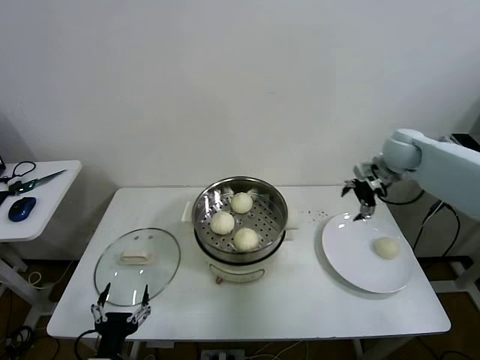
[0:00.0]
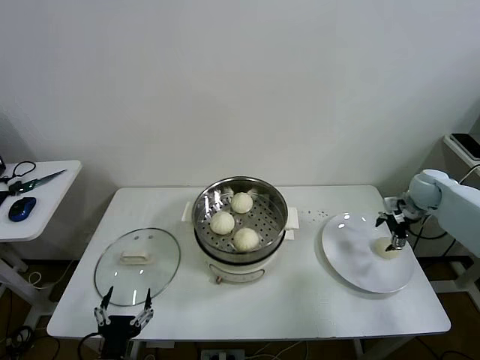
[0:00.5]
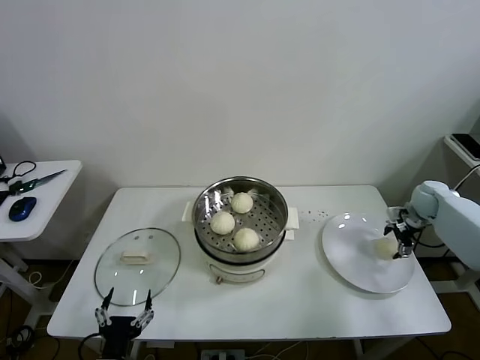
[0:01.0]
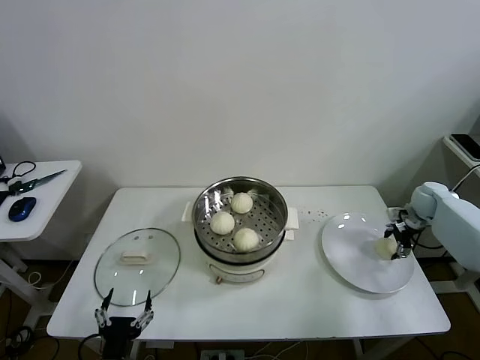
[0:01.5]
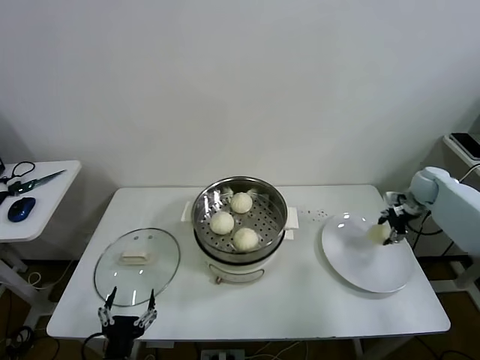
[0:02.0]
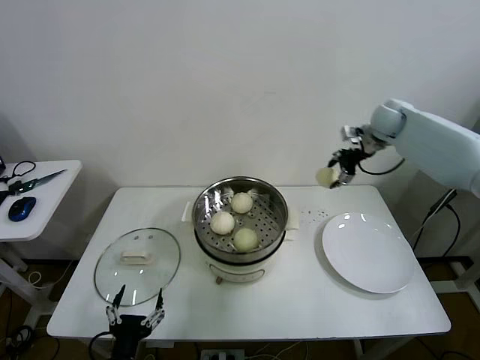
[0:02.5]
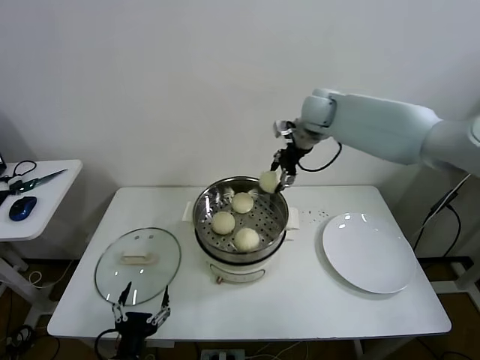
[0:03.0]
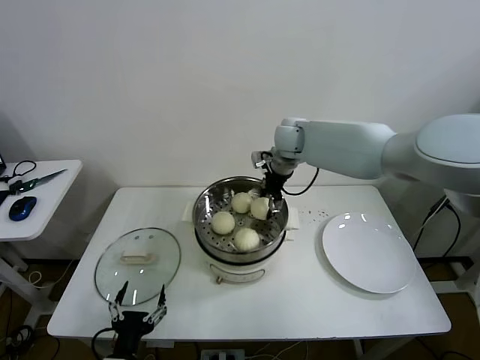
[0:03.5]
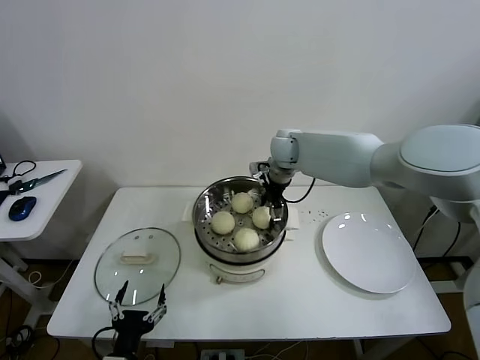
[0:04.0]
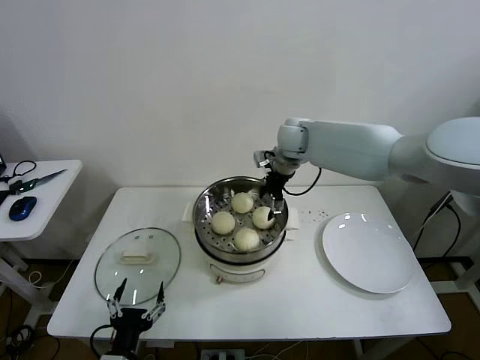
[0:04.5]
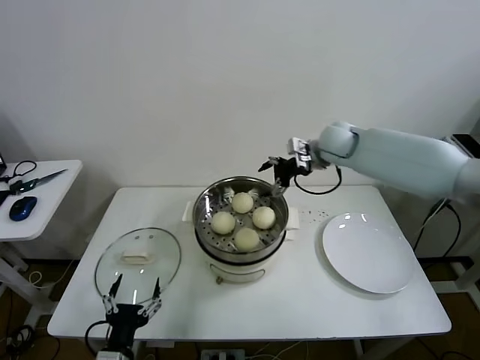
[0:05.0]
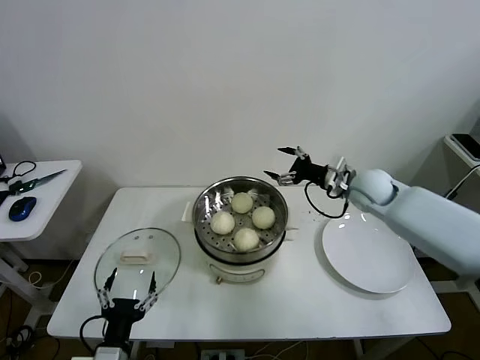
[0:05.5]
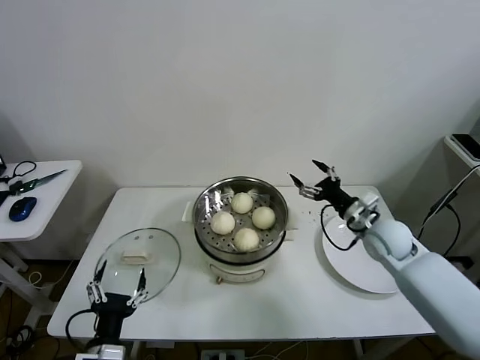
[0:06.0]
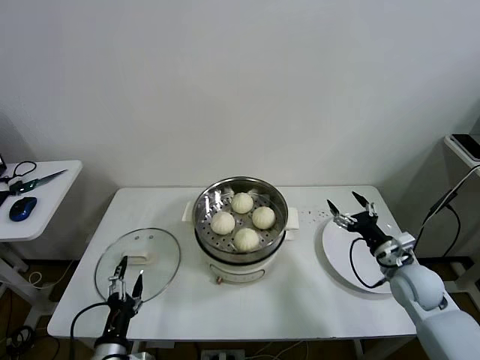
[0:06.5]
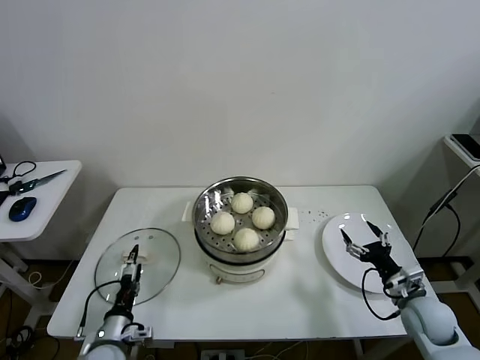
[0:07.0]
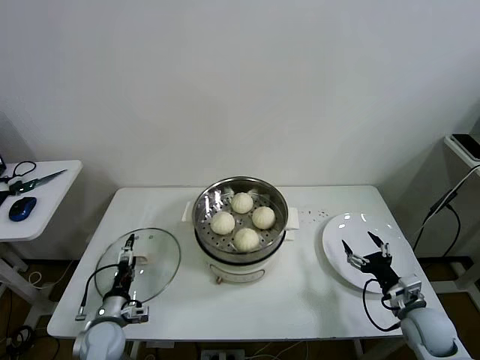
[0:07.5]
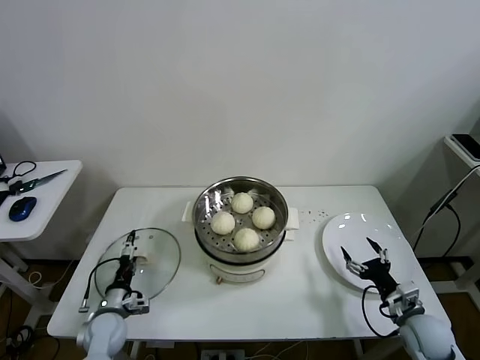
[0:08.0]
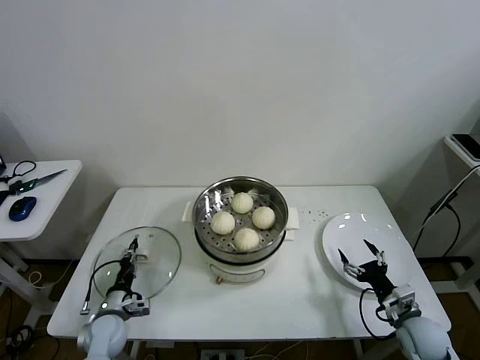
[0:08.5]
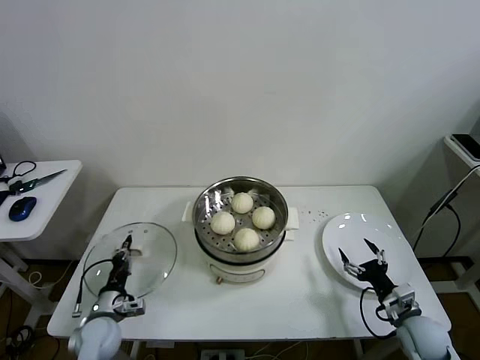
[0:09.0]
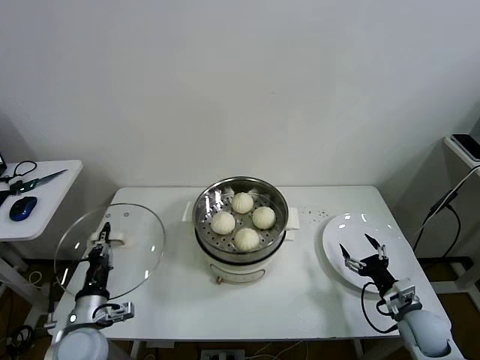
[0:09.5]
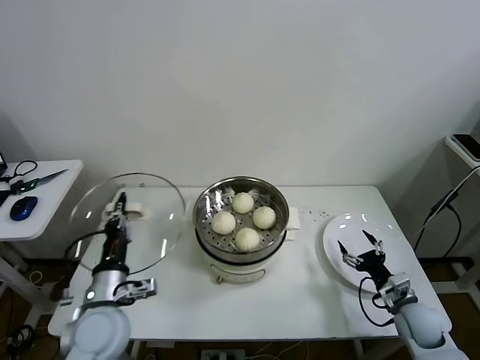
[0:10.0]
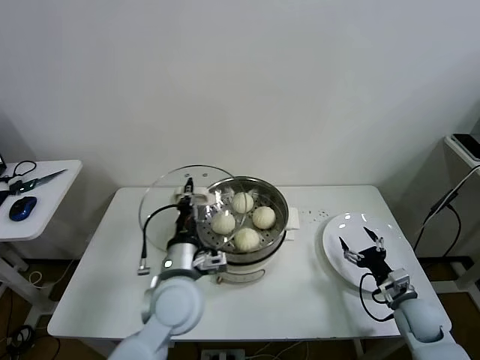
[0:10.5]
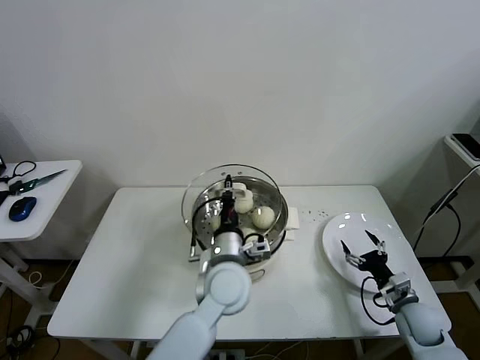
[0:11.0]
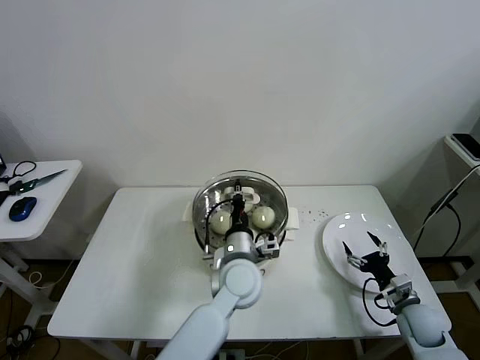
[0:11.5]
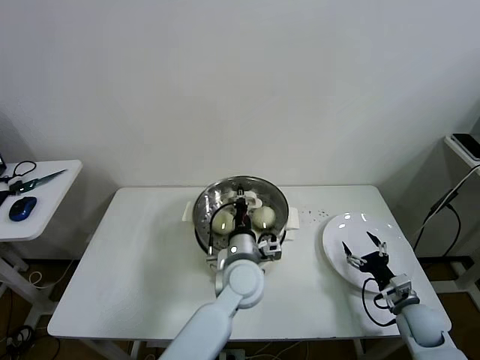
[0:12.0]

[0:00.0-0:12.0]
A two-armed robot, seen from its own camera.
Task of the whole recording: take steamed baozi put them in steamer then cover it.
Step, 0:00.0 to 0:01.5: Grasp the baozi in the plate with right gripper.
Step, 0:02.0 to 0:04.0: Place the baozi on the steamer with right gripper.
Step, 0:04.5 to 0:08.5: Grasp the pot lid with left gripper.
0:00.0 to 0:02.0: The right gripper travels to the right and downward by about 15 cm, and closes its fingers.
0:02.0 to 0:04.0: The right gripper goes about 40 cm to the left, and opens up.
0:04.0 to 0:06.0: The right gripper goes some 30 cm to the right, backward and downward.
0:06.0 to 0:08.0: The right gripper moves backward, downward and to the right, some 25 cm. Meanwhile the left gripper travels forward, downward and to the left by some 20 cm.
0:08.0 to 0:10.0: The left gripper is displaced upward by some 20 cm, and closes.
0:10.0 to 0:12.0: The left gripper shifts about 30 cm to the right and forward.

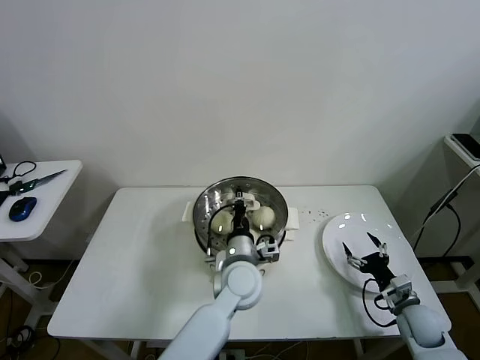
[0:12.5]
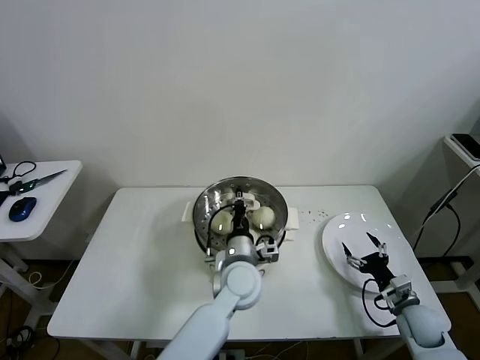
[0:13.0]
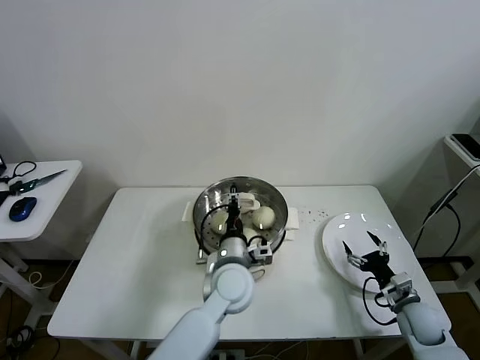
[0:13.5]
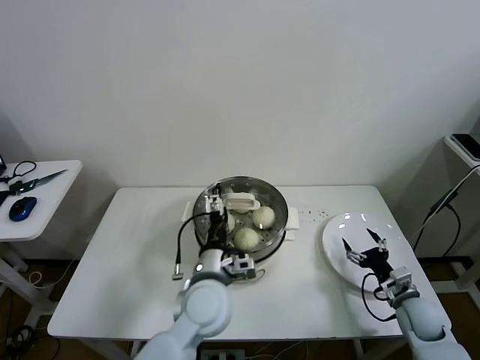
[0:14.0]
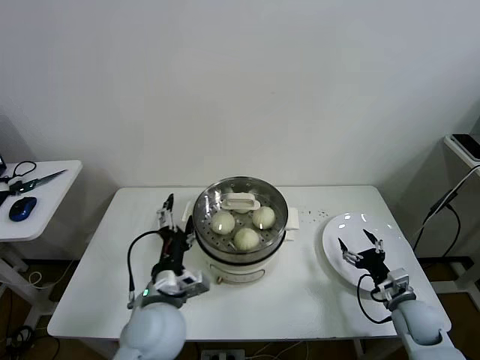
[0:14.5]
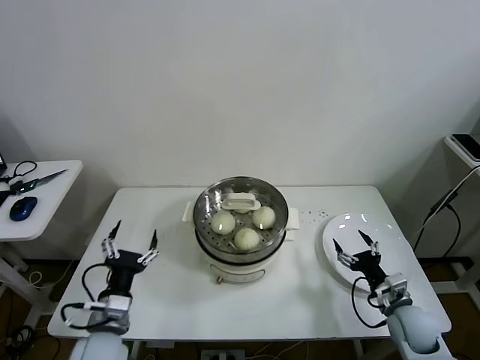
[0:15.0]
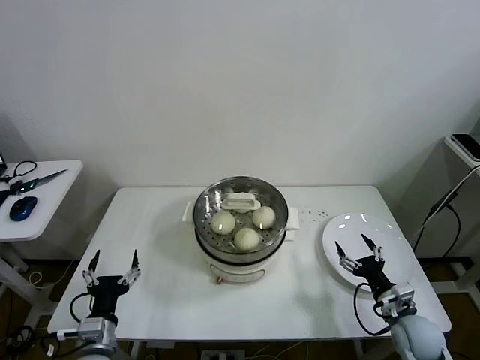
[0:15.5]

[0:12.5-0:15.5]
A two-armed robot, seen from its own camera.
Task of the whole recording: take steamed baozi put them in steamer then cover it.
0:12.5 to 0:14.0: The left gripper heads to the left, covering roughly 5 cm, and opens up.
0:14.0 to 0:15.5: The right gripper shifts by some 5 cm; the left gripper is displaced to the left, backward and downward by about 30 cm.
